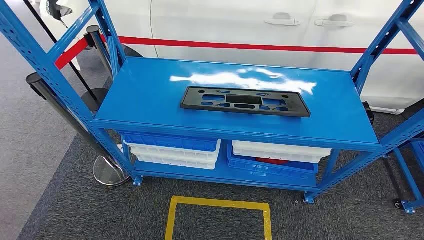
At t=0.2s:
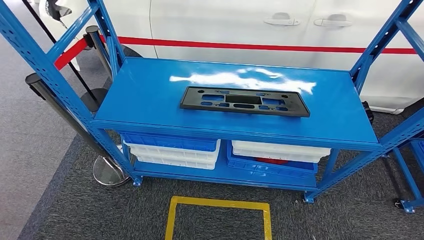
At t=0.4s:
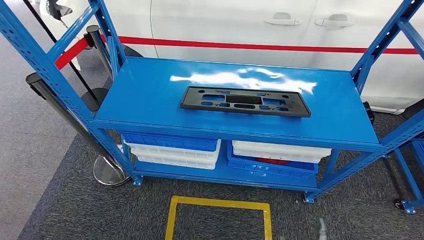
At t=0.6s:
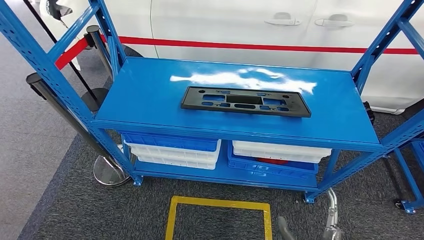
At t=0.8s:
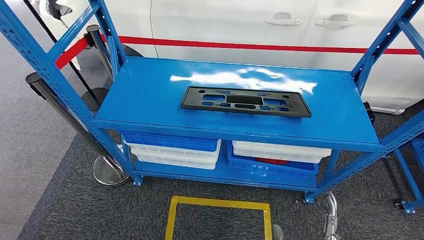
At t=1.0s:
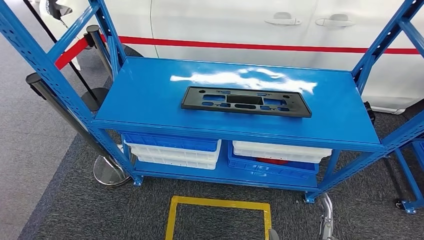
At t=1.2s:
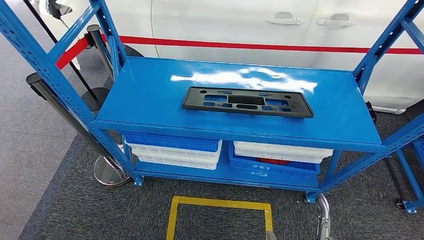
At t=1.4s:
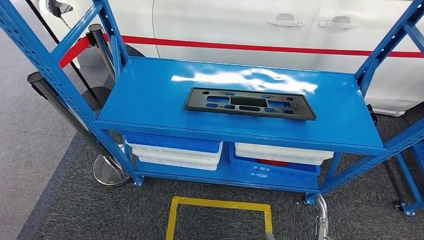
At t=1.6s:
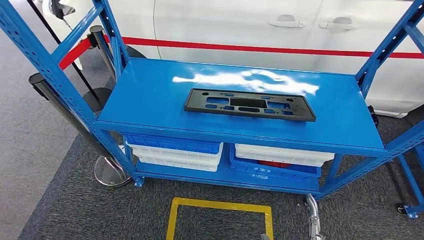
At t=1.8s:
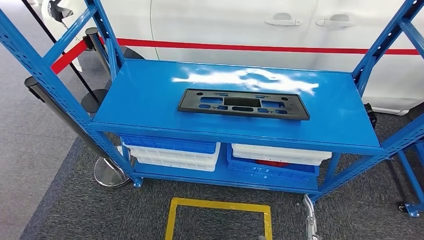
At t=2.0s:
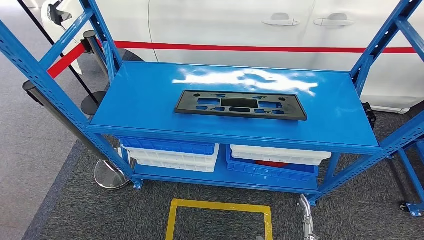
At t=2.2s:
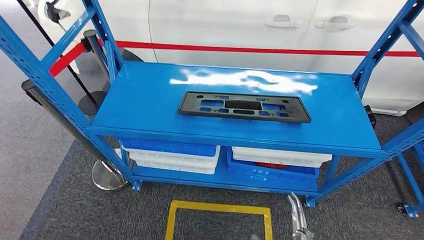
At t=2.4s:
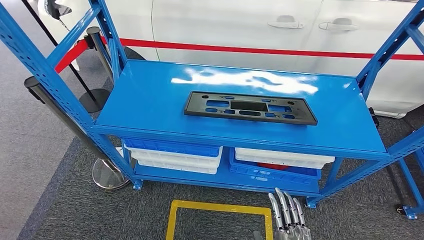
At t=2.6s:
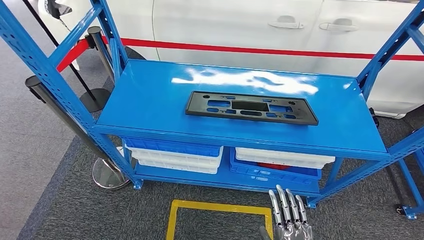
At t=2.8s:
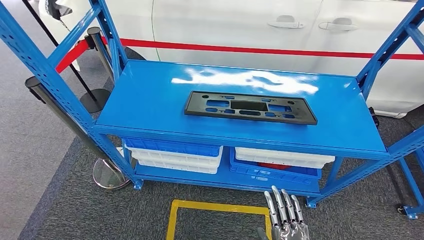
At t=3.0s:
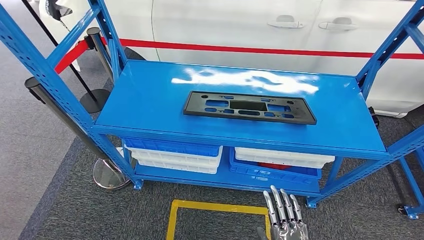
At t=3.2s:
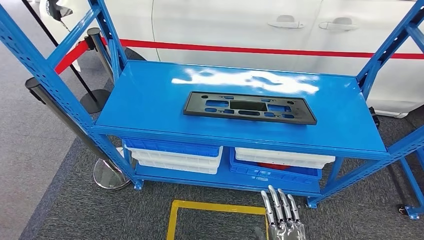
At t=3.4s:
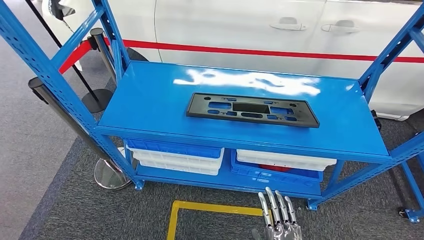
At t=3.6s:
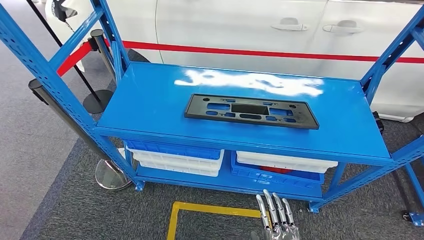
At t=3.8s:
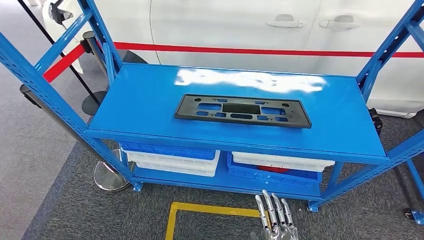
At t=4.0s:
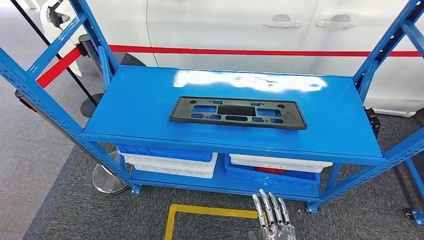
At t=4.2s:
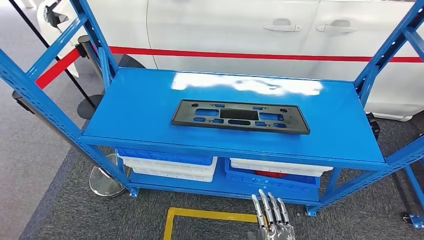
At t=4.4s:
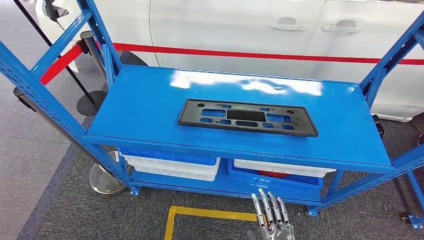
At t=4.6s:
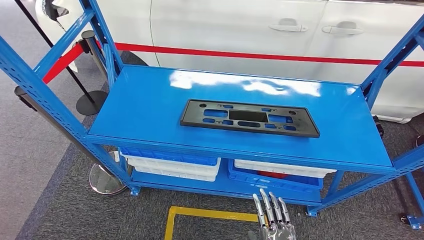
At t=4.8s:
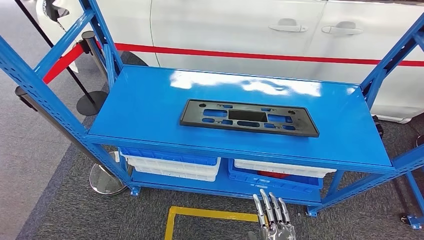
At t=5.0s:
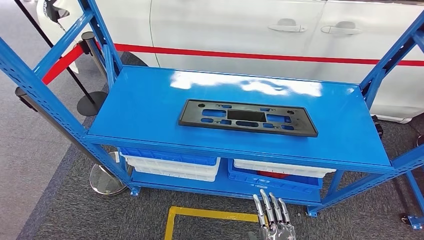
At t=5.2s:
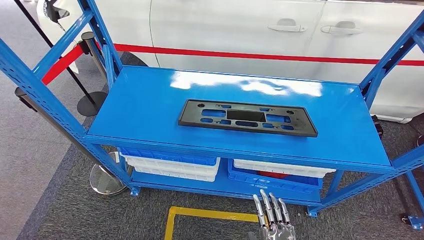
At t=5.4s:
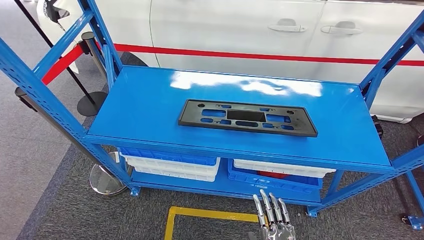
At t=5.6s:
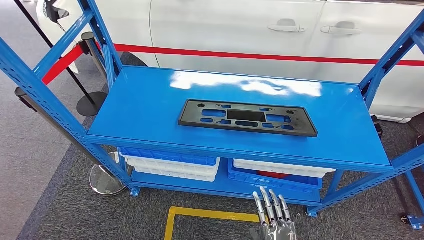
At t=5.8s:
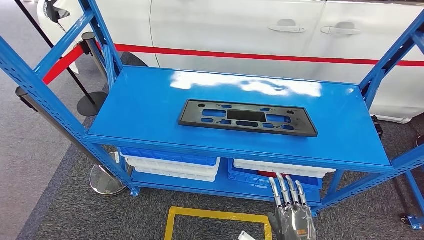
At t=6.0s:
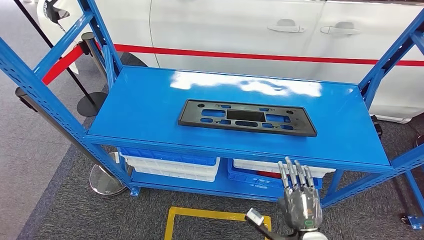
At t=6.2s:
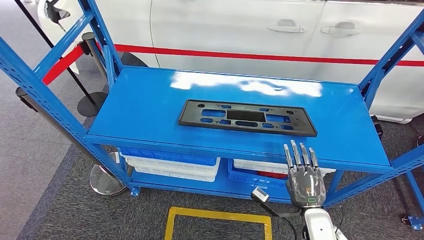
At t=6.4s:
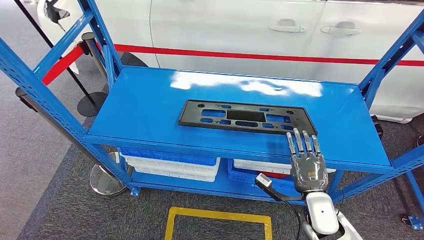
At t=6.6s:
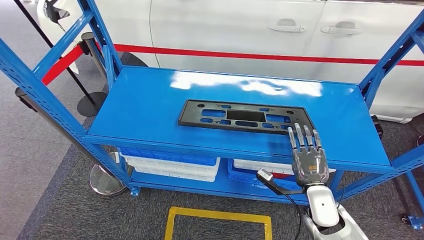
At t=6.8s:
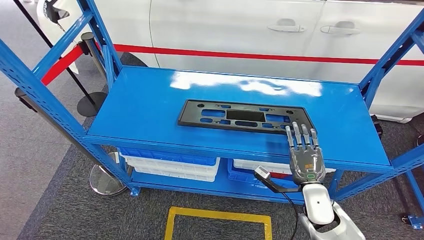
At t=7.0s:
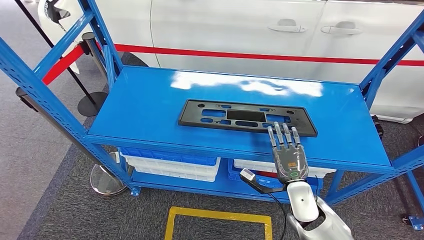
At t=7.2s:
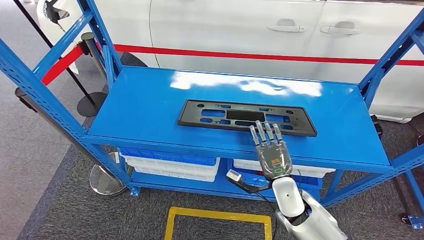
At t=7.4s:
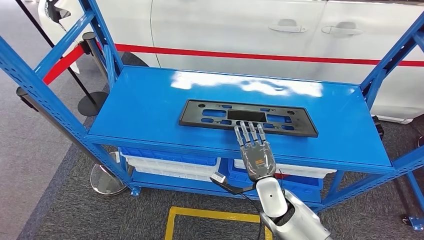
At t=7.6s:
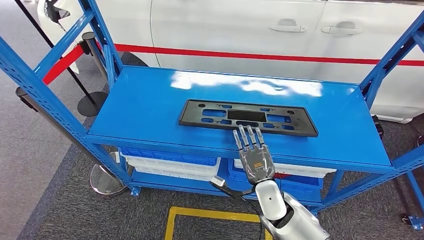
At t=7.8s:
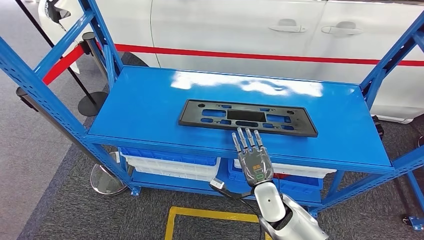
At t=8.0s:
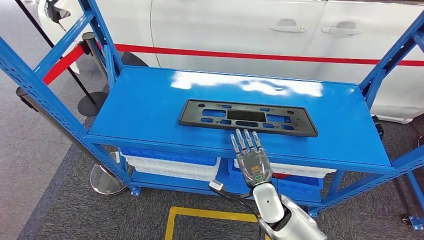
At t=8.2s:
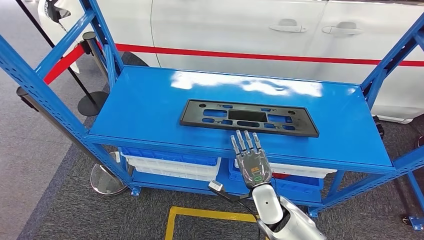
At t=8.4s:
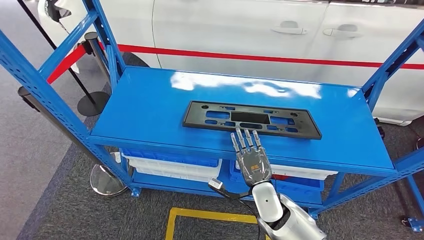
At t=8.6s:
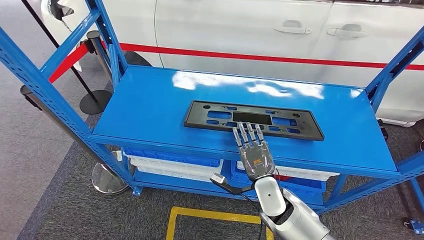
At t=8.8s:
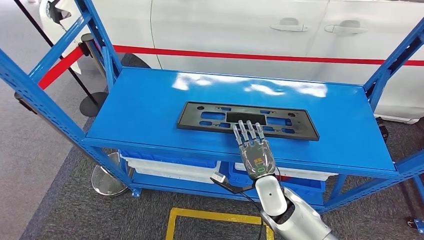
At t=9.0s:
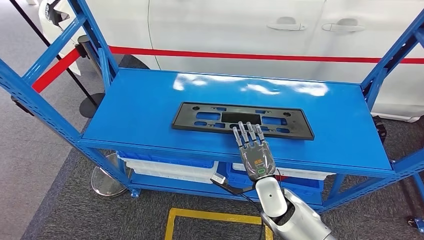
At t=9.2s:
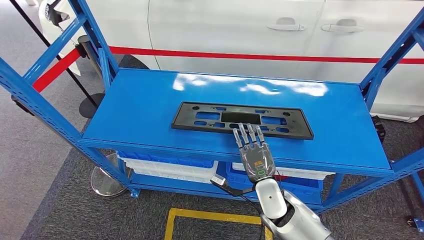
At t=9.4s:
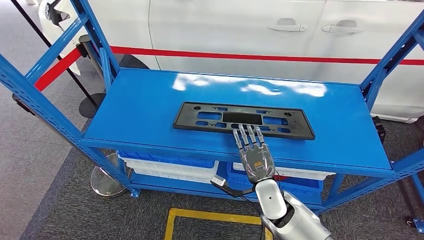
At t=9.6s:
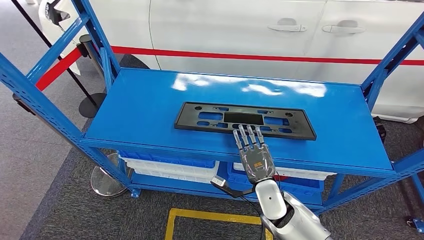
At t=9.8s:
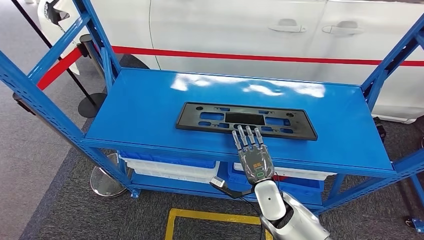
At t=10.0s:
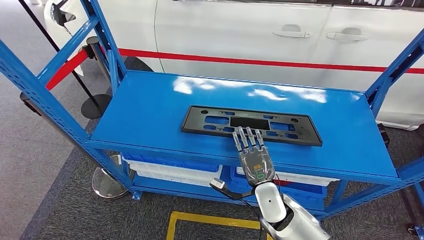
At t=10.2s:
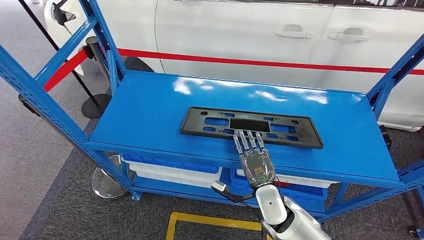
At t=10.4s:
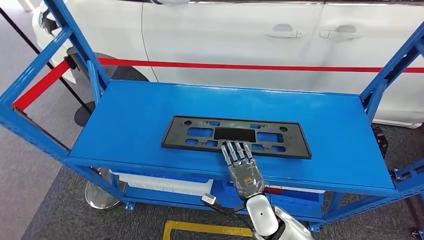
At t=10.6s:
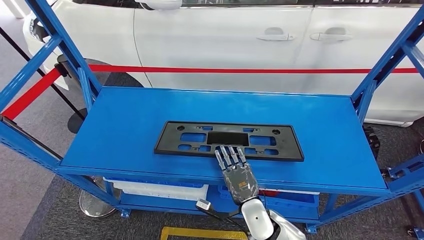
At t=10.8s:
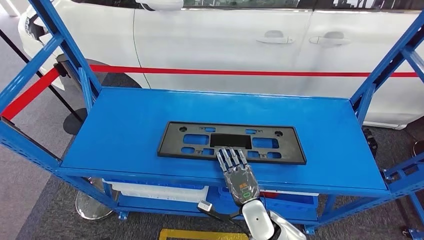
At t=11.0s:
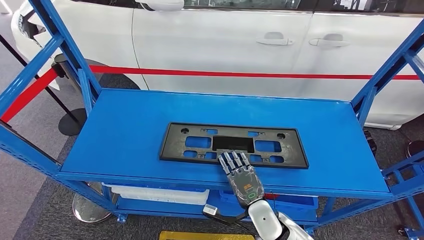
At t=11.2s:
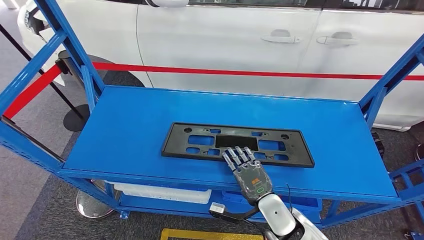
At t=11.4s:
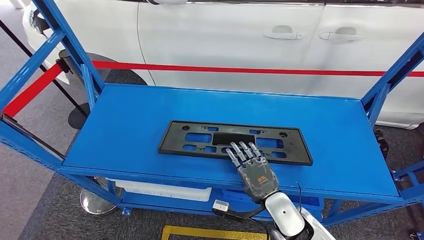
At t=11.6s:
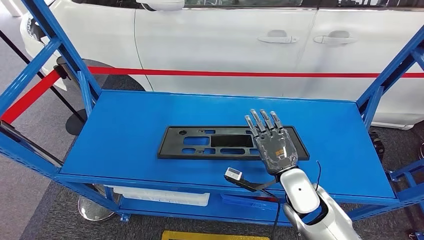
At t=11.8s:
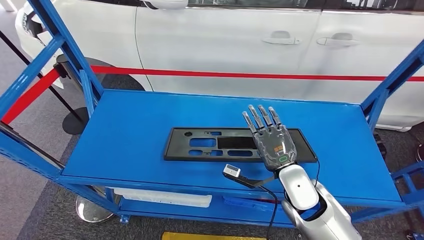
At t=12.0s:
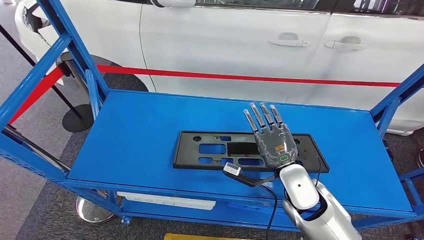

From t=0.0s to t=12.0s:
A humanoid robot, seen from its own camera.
From t=4.4s to t=6.0s: The right hand heads forward and to the right, covering about 10 cm.
From t=6.0s to t=7.6s: The left hand travels to the right by some 5 cm. Meanwhile the right hand moves forward and to the left, some 15 cm.
From t=7.6s to t=9.0s: The two hands keep their place.

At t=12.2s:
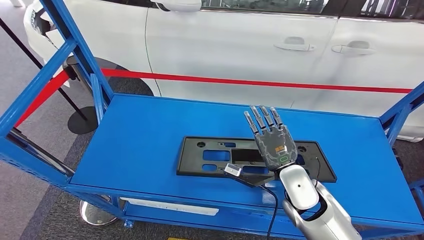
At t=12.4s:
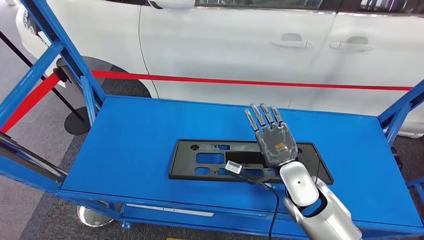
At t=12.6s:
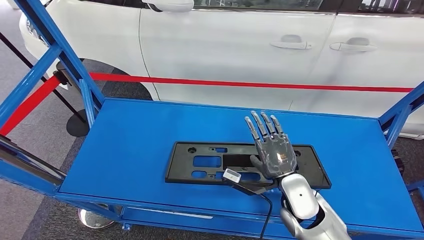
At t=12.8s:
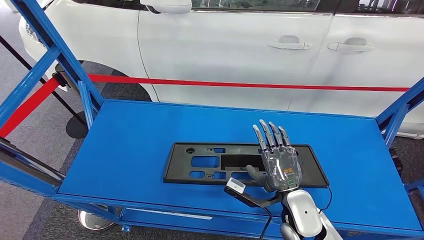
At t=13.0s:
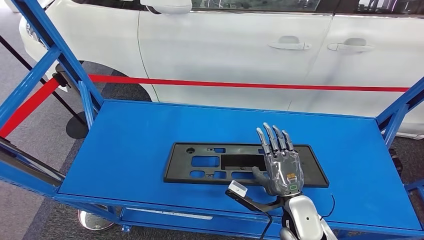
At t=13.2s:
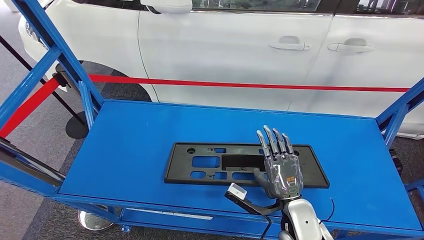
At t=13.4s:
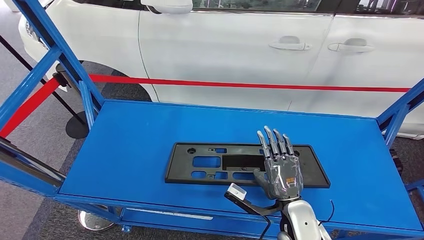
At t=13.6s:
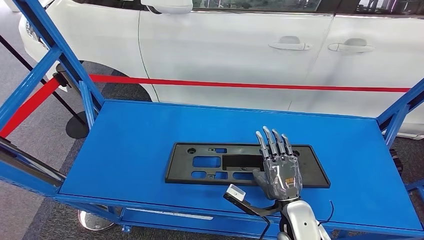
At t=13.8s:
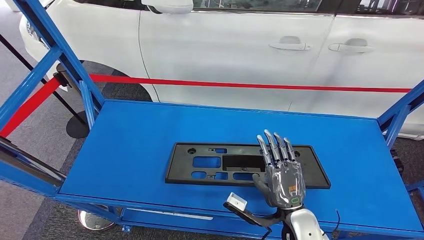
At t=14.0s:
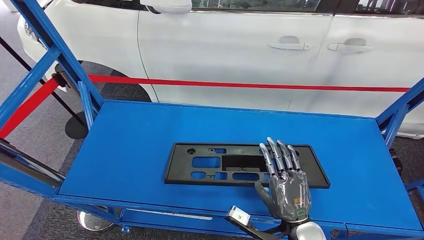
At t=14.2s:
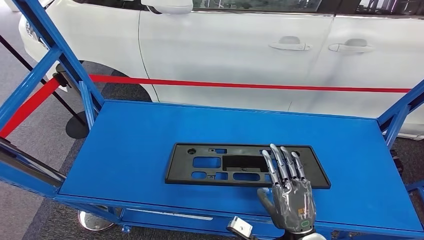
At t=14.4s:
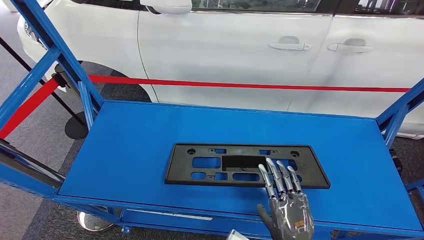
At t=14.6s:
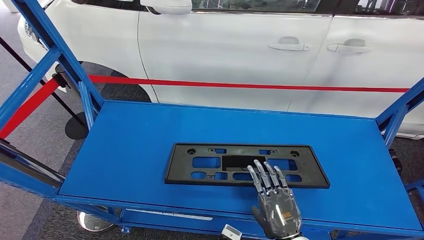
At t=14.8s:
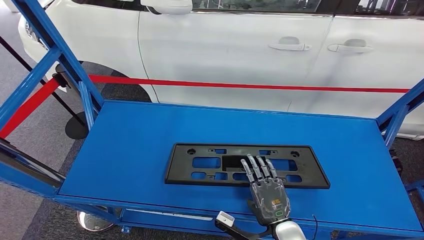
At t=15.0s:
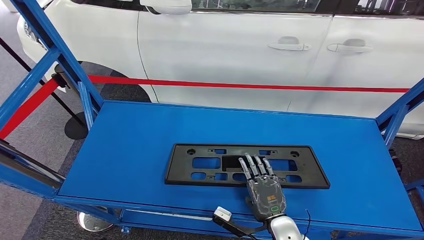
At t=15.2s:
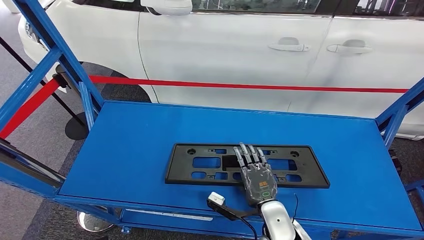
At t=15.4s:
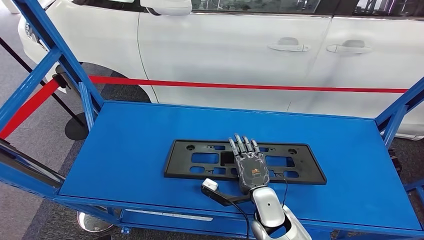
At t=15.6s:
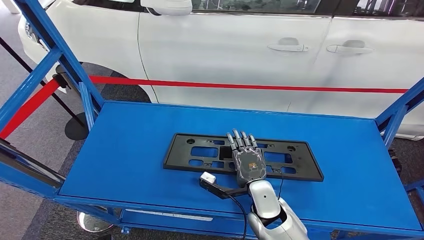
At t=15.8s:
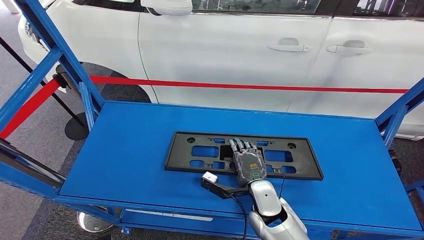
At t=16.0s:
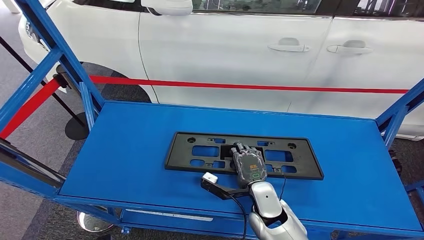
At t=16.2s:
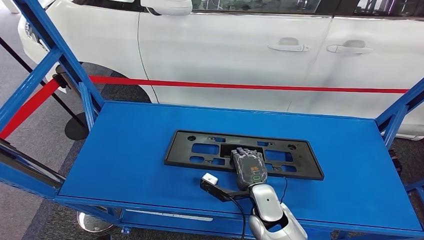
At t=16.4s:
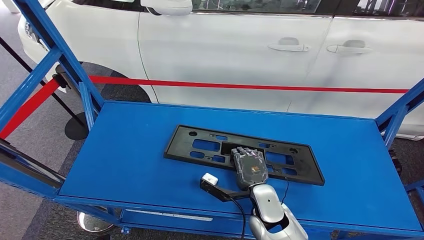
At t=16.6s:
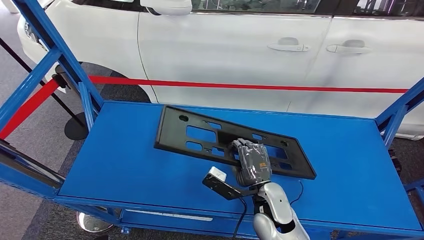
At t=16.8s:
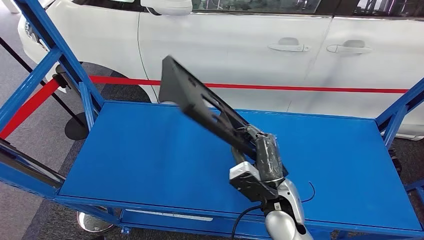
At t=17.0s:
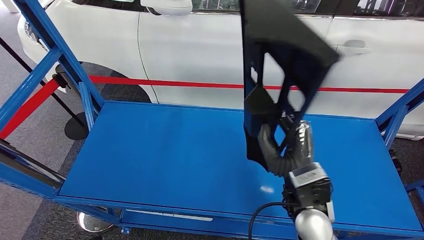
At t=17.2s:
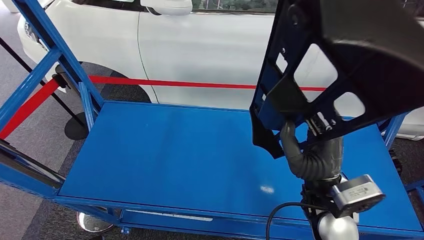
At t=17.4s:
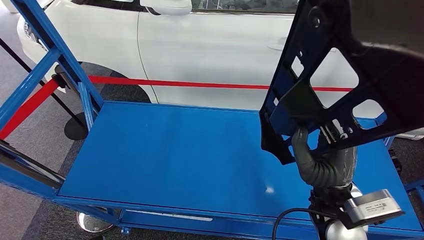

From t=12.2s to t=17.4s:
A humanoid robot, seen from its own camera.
Step, from t=12.2s to t=17.4s: Pick up the large material from the shelf.
From t=14.0s to t=15.6s: The right hand is displaced forward and to the left by about 10 cm.
